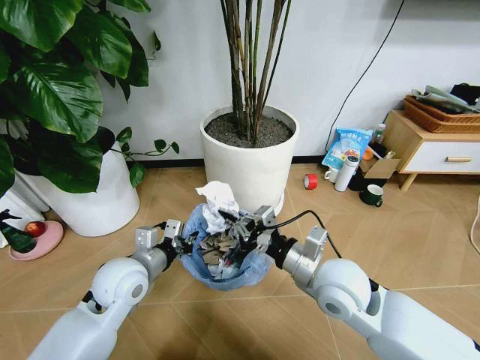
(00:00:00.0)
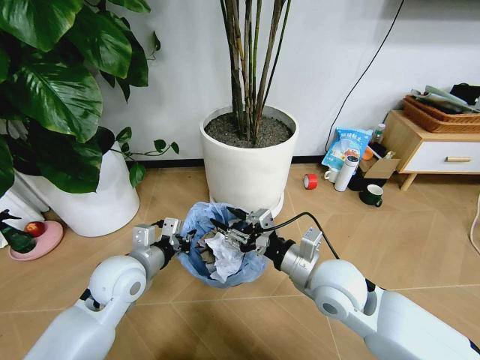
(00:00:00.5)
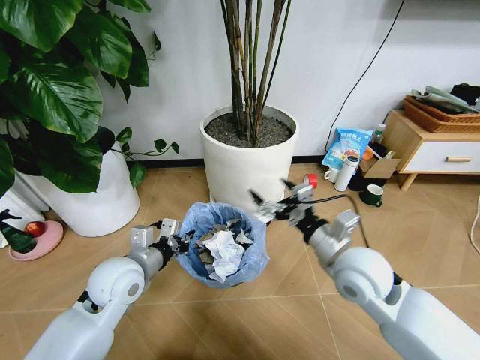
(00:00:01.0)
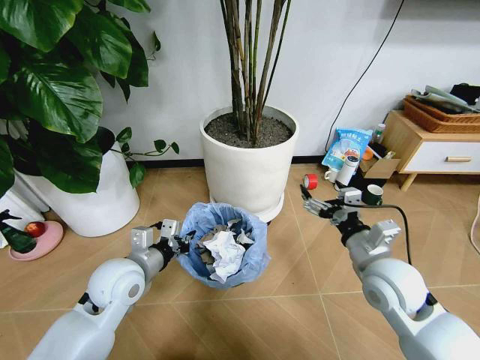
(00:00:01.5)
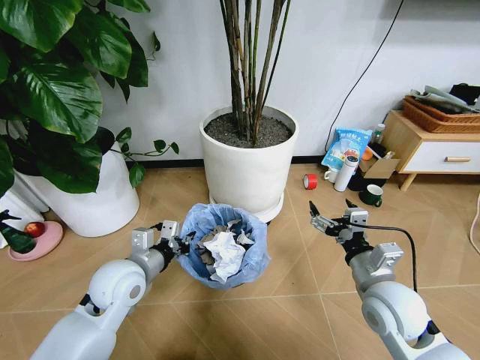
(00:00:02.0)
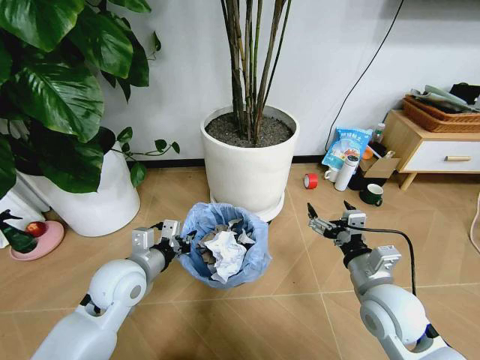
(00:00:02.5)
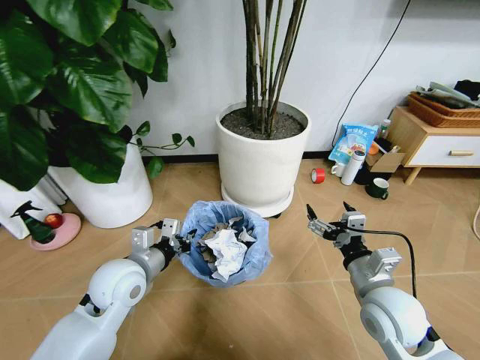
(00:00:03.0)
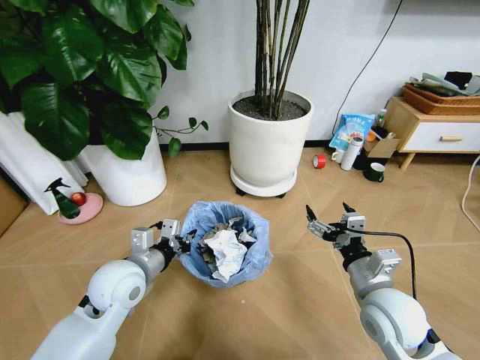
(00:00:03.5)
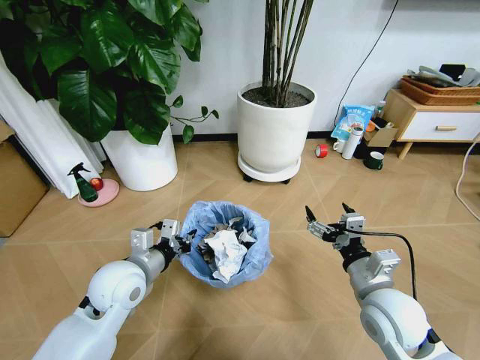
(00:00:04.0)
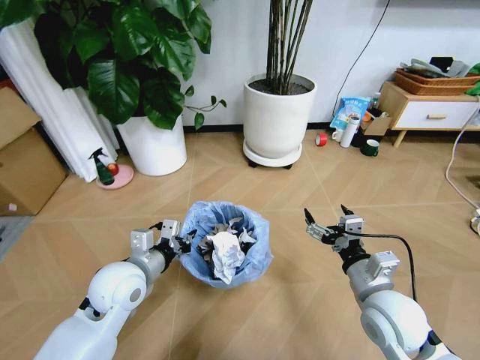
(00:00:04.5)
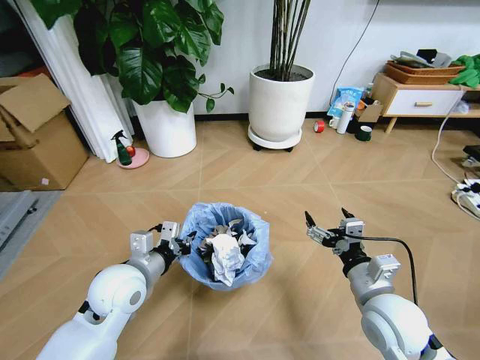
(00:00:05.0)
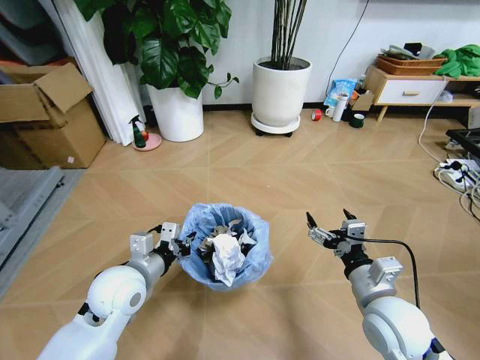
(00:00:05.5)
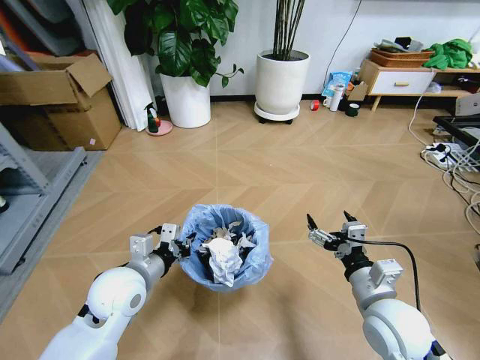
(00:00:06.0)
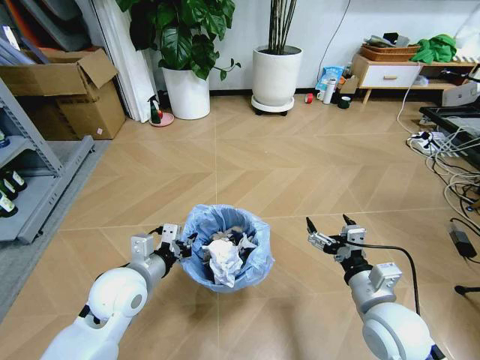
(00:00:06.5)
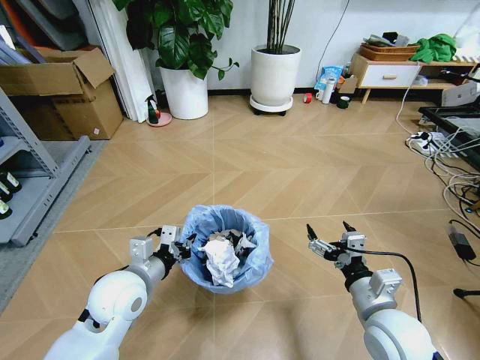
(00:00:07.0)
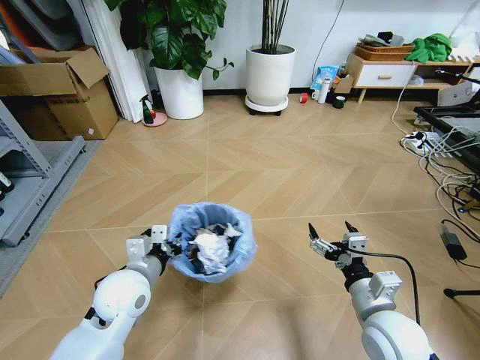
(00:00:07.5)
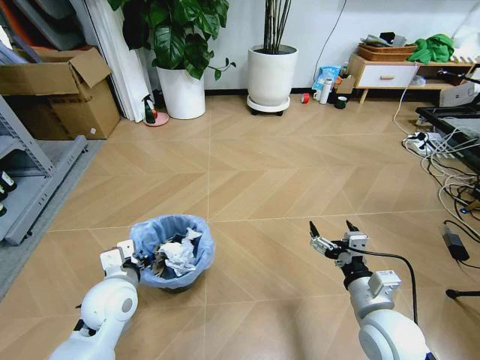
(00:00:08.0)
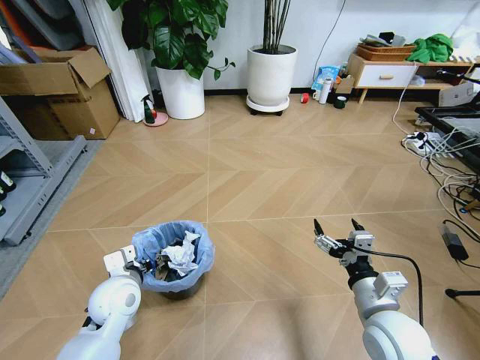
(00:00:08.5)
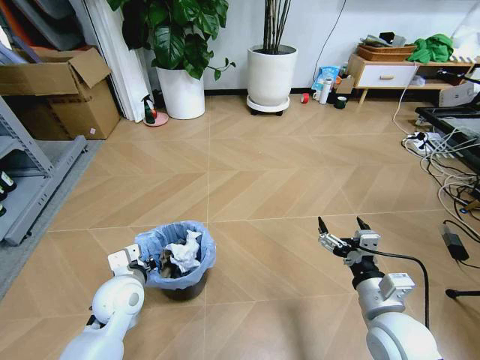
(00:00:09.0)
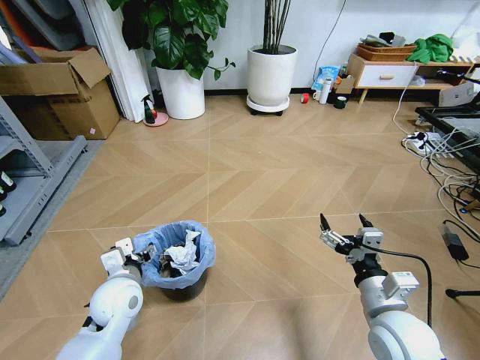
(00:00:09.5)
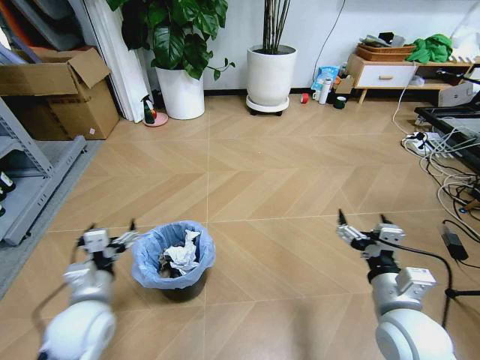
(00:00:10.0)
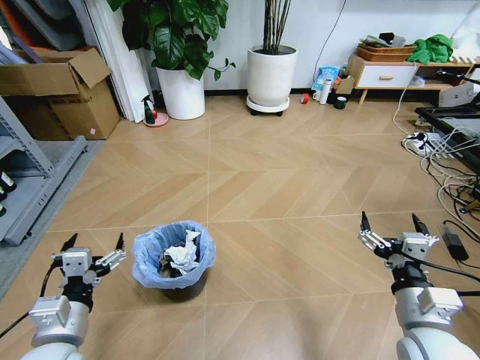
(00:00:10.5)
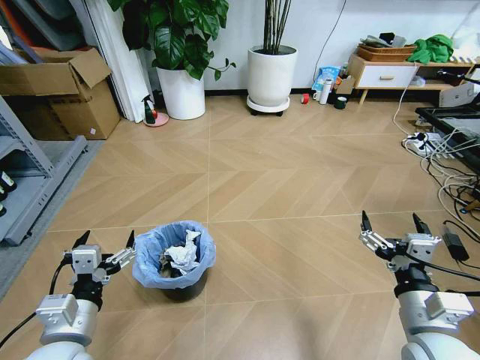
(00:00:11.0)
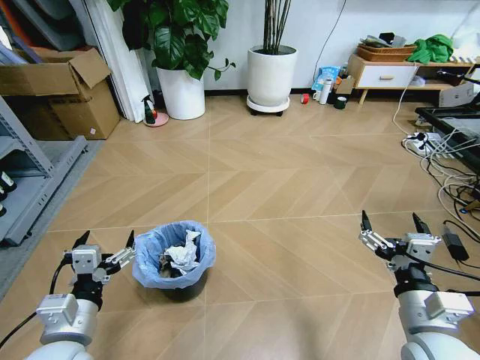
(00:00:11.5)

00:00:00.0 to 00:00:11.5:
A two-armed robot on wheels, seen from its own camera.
Task of the whole recording: Pick up the trash bin and place the garbage on the floor into it.
00:00:00.0 to 00:00:02.0: The right gripper is displaced to the right by some 10 cm, and opens its fingers.
00:00:07.5 to 00:00:09.5: The left gripper ends up approximately 5 cm from where it was, and opens.
00:00:09.5 to 00:00:11.5: The right gripper ends up approximately 5 cm from where it was; the left gripper shifts about 15 cm backward and upward.
